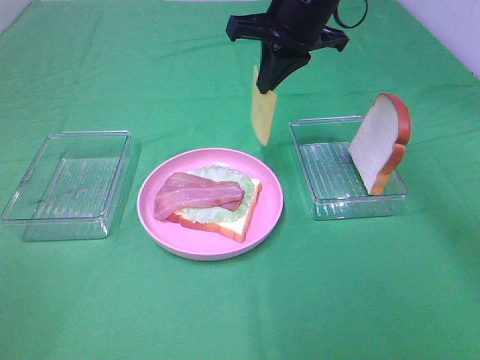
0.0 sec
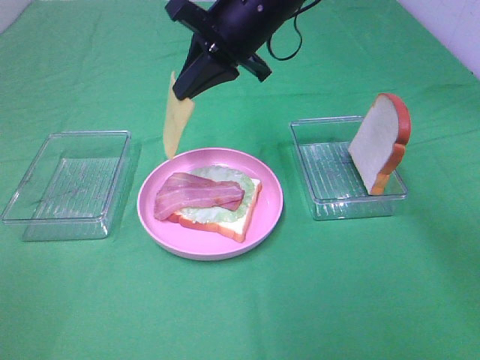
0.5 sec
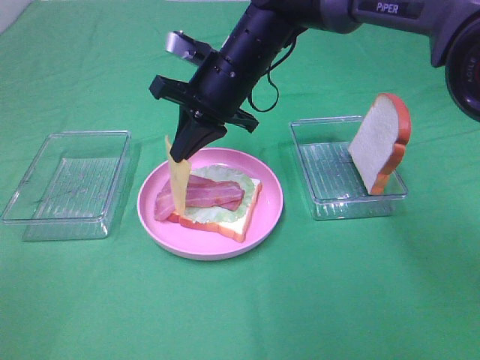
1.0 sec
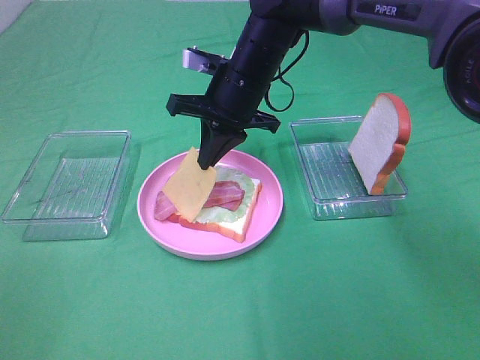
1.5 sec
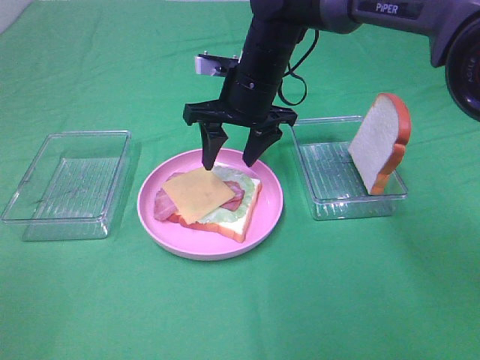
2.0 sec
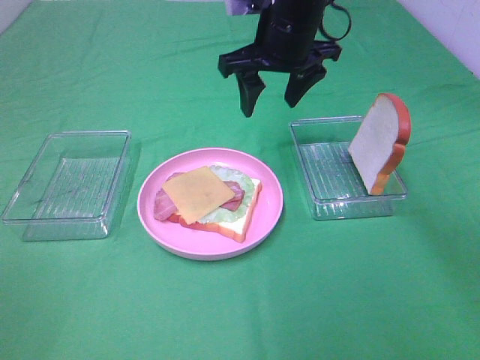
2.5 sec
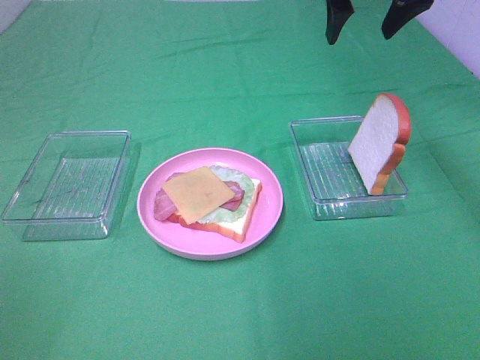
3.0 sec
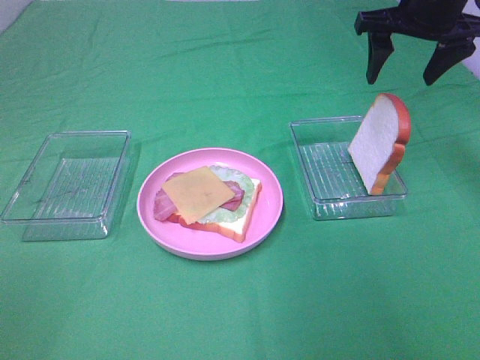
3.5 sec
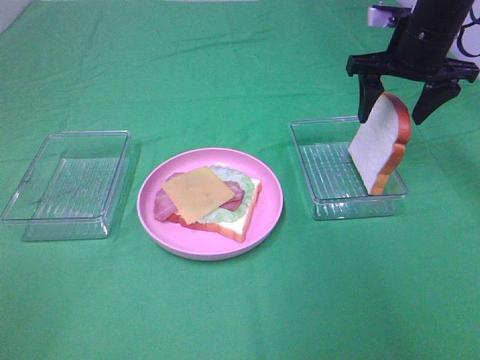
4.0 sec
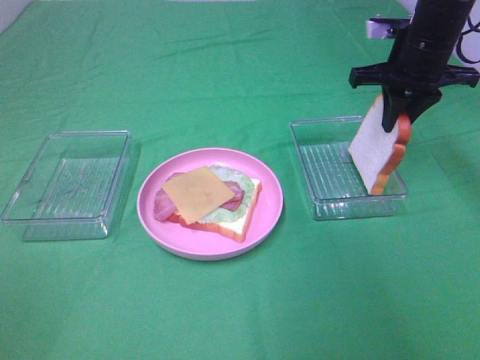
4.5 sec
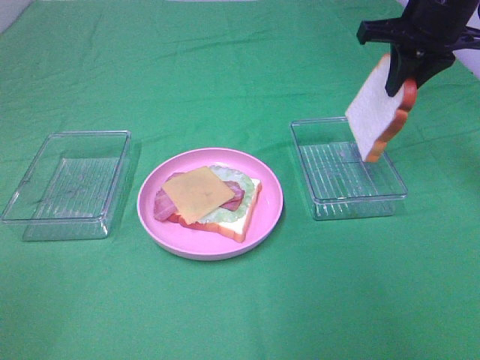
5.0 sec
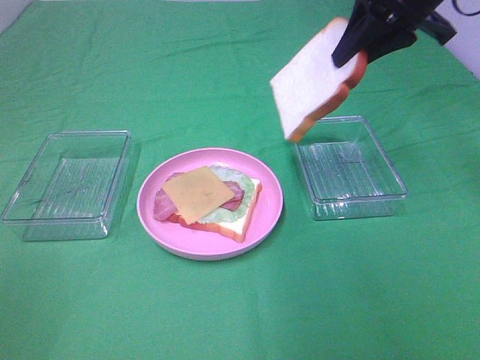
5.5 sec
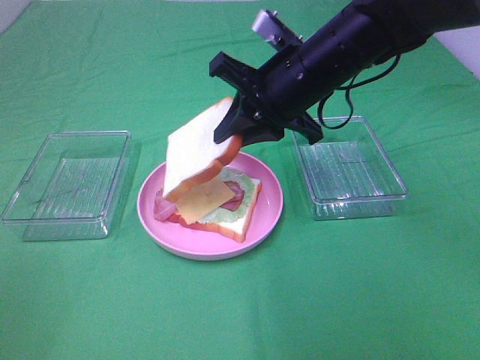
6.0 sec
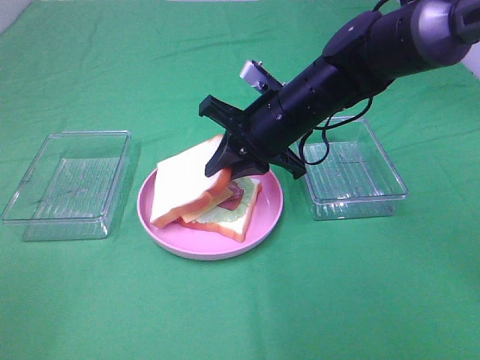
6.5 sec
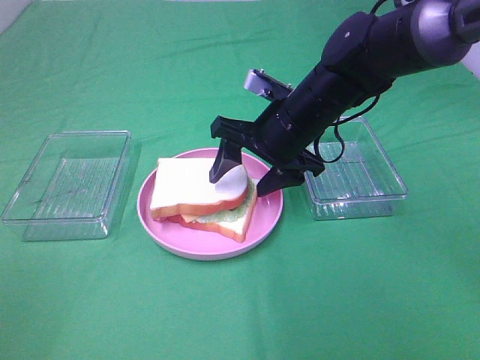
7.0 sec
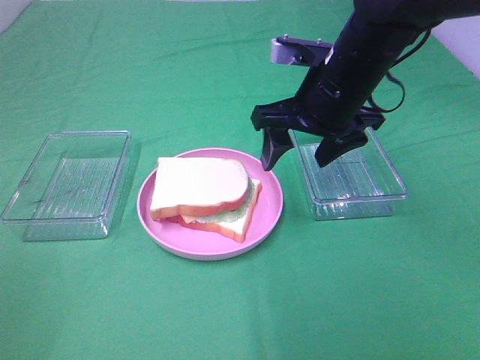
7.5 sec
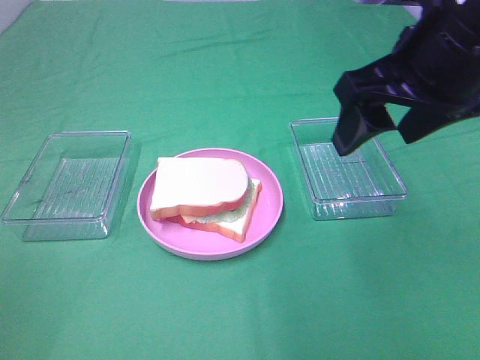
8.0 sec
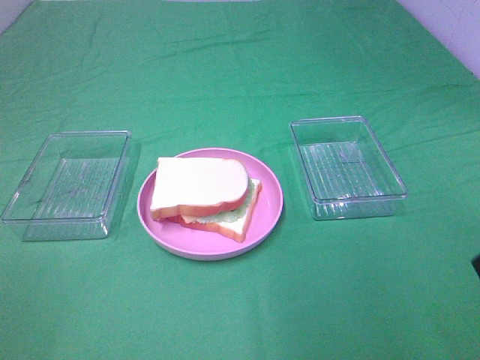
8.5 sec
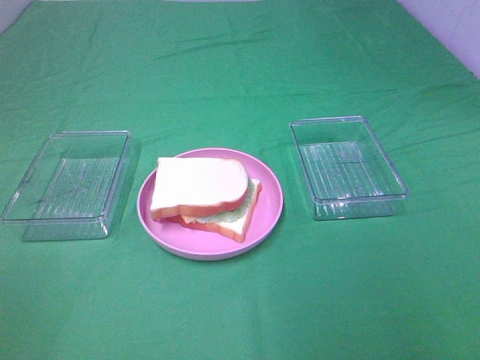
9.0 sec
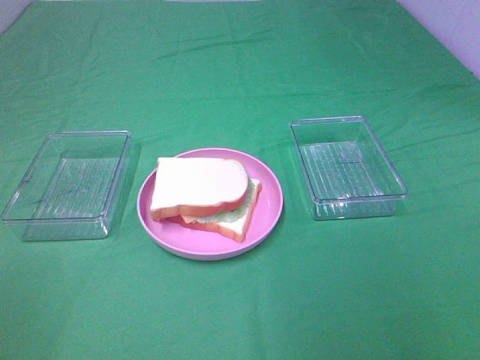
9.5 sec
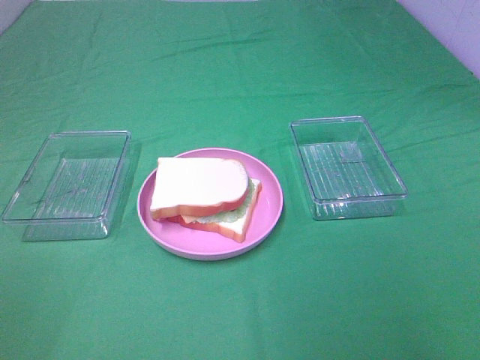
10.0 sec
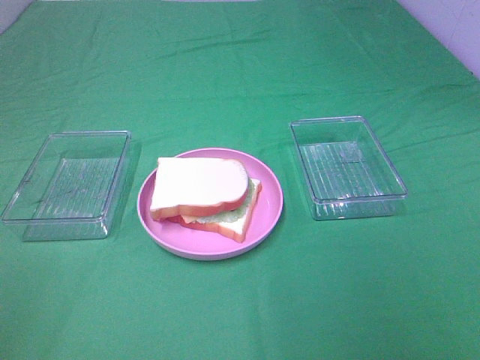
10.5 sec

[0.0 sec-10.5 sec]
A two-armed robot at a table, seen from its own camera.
Task of the whole recording: Make sandwiches.
Step, 0.0 sec to 1.5 sec: Right hand:place the cheese slice on top of the bacon.
Step, 2.0 sec to 4.5 sec: Right hand:grab the bread slice.
Step, 5.0 sec to 7.0 sec: Right hand:place the bread slice on the cheese slice.
0.0 sec to 2.0 sec: The right gripper goes roughly 10 cm downward and to the left, and opens.
2.0 sec to 4.0 sec: The right gripper heads to the right, covering some 20 cm.
4.0 sec to 6.5 sec: The right gripper heads to the left, backward and downward, covering approximately 20 cm, and closes up.
6.5 sec to 8.5 sec: The right gripper travels backward, to the right and upward by about 35 cm, and opens up.

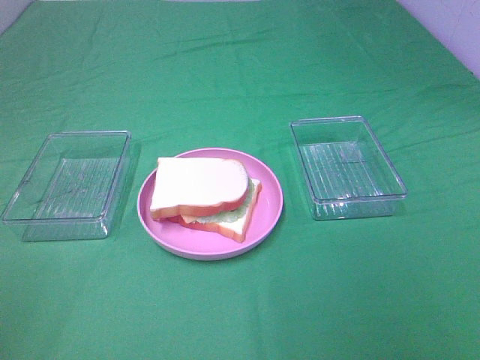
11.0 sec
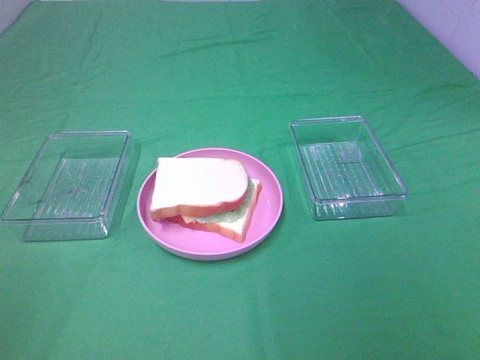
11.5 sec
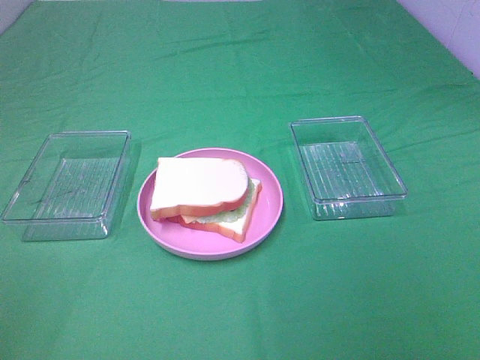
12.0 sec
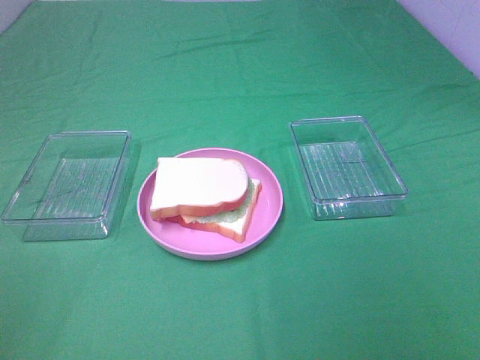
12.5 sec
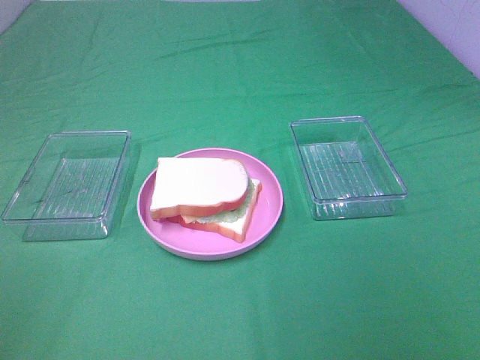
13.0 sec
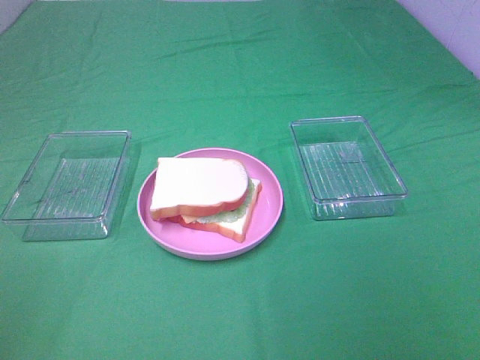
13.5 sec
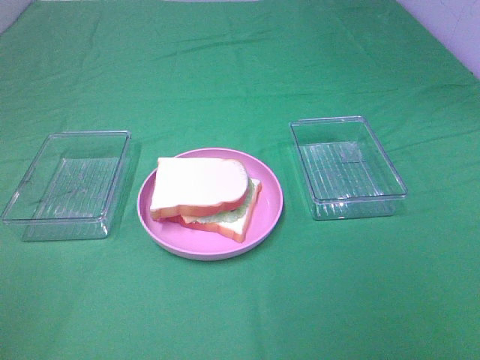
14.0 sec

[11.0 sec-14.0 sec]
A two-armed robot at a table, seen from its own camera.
Task of the whole recording: Make sandwiches.
12.5 sec to 14.0 sec: The two grippers keep their place.

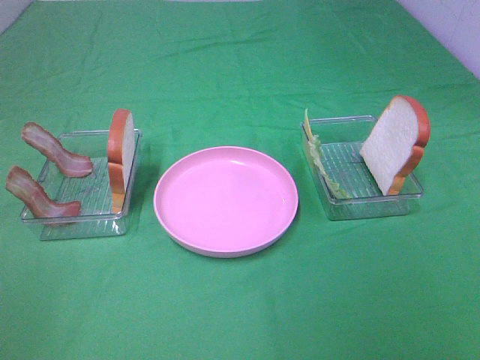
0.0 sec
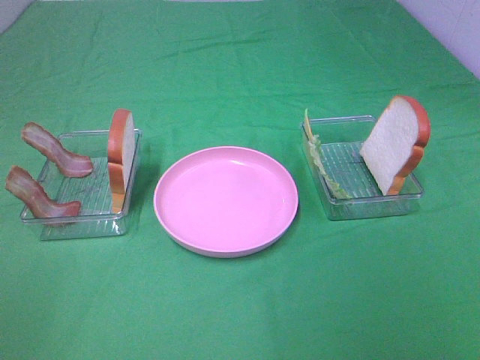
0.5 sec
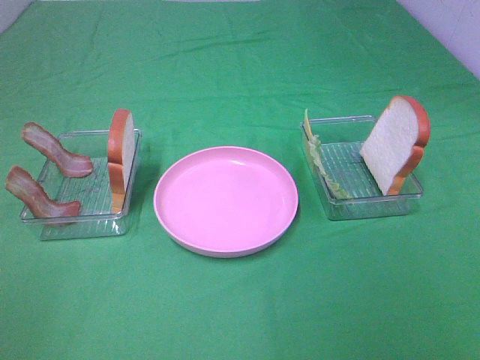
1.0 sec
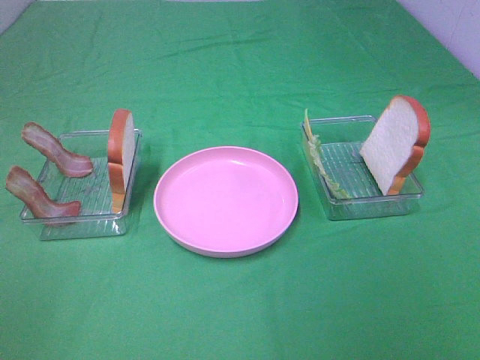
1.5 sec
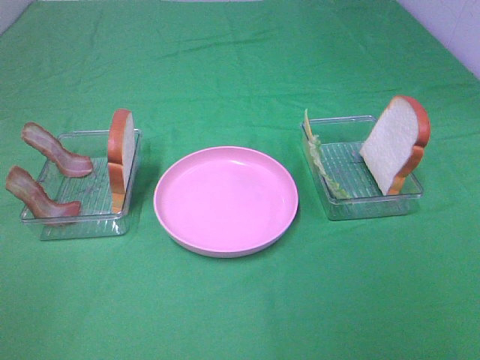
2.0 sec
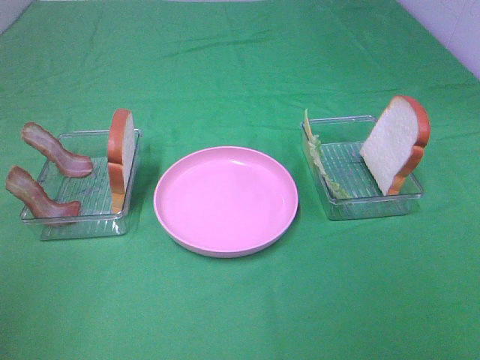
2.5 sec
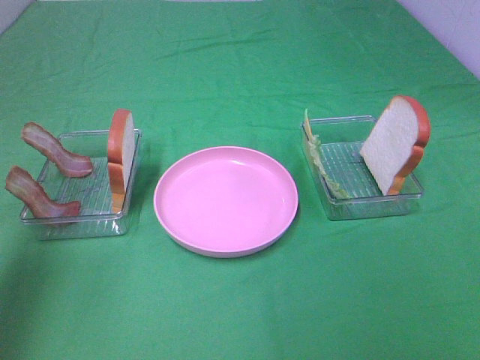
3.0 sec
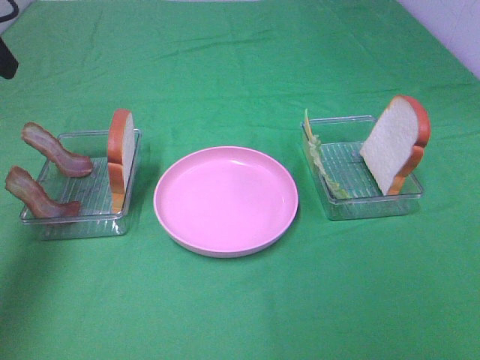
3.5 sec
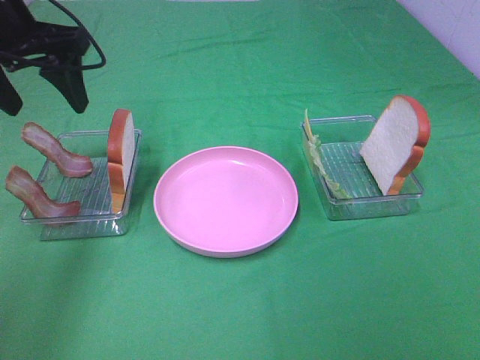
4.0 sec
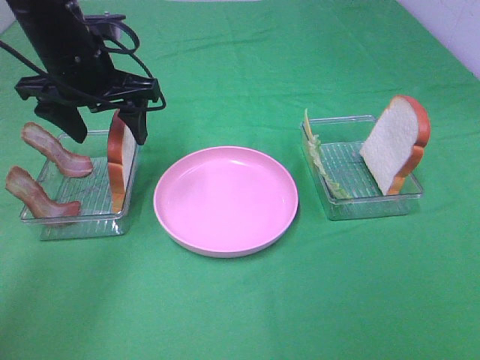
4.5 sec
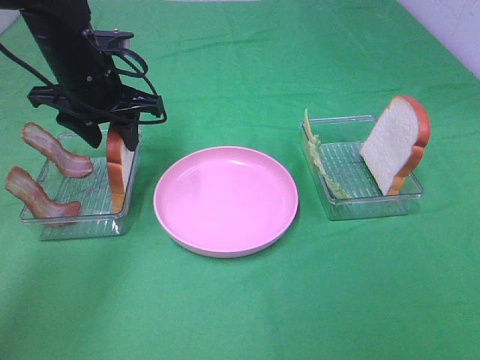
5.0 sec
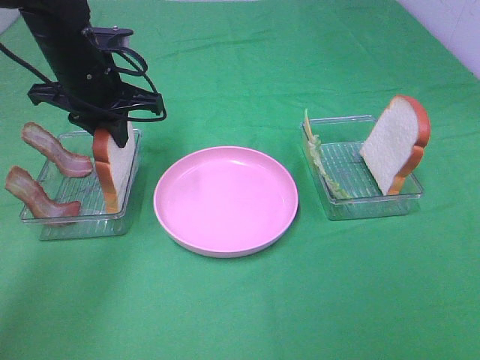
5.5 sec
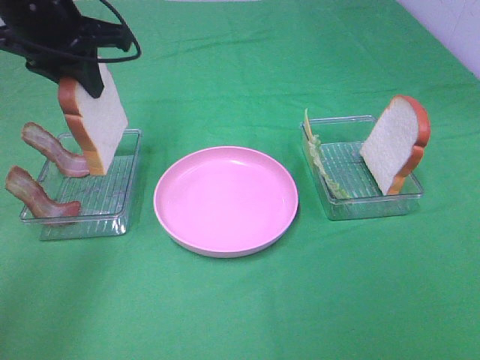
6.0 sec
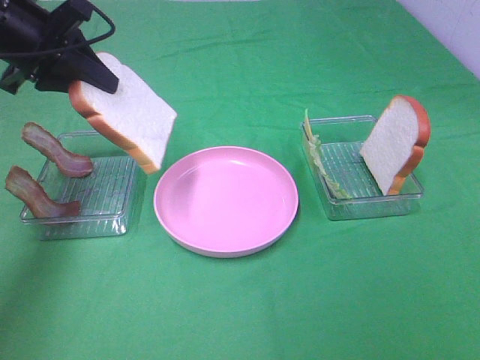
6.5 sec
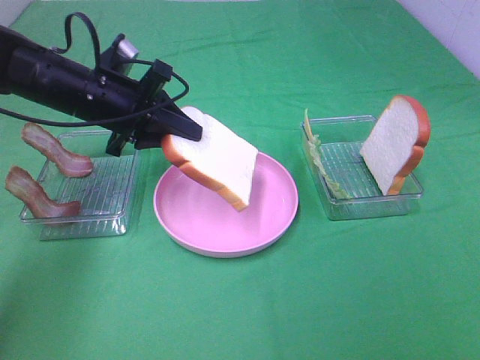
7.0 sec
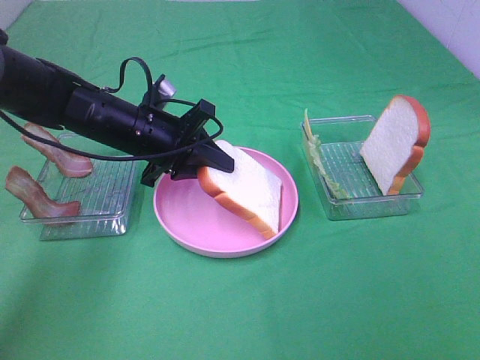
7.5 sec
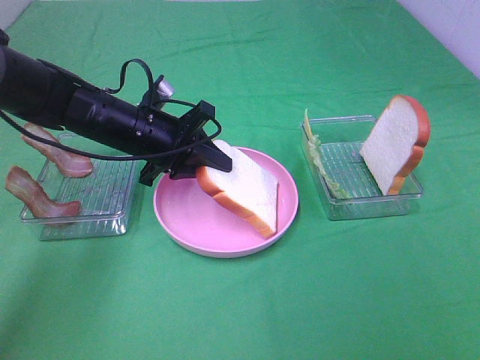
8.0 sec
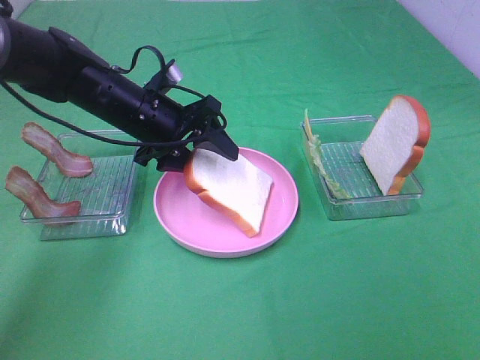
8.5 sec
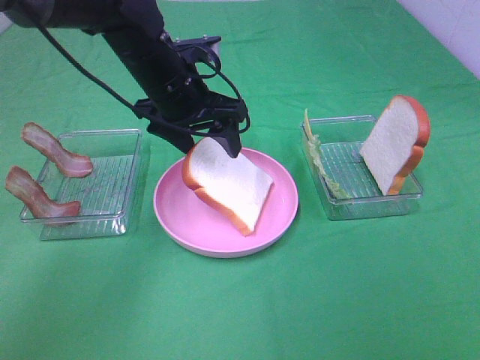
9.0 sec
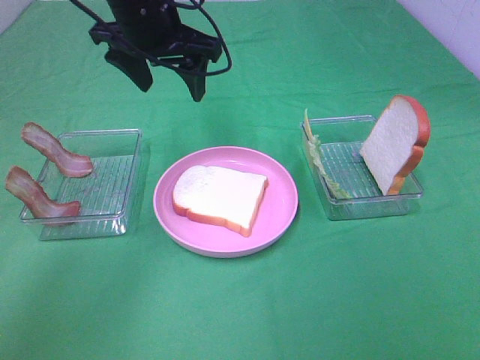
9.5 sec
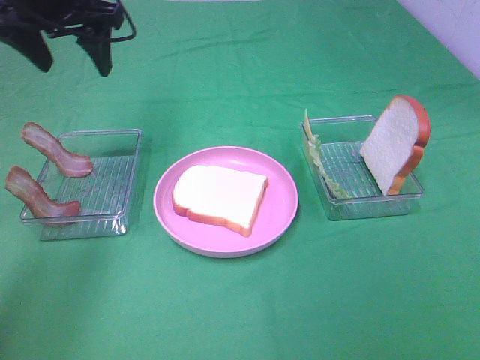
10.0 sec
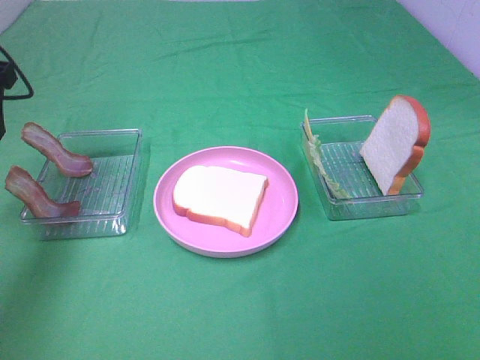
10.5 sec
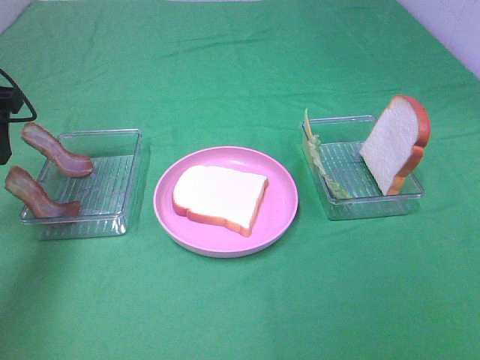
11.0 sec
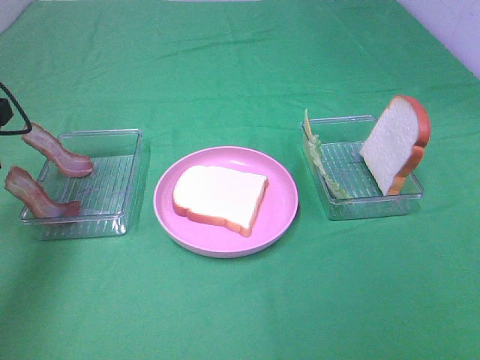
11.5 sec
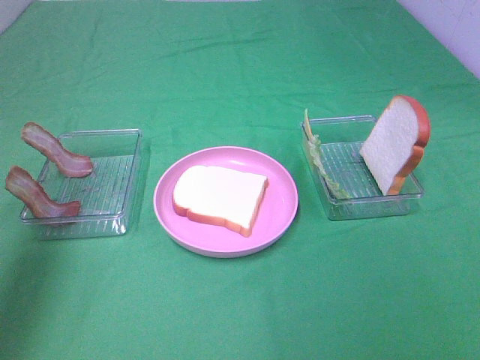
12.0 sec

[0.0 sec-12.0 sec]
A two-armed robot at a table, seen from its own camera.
Task of the whole recording: Make sandwiches.
Step, 0.0 sec to 5.0 sec: Left hand:grab the bread slice.
Step, 5.5 sec to 9.0 sec: Left hand:place the bread slice on the plate.
0.0 sec to 2.0 sec: Both grippers stay put.
2.0 sec to 4.0 sec: The left gripper moves forward, some 35 cm.
4.0 sec to 6.0 sec: The left gripper goes downward and returns, approximately 10 cm each way, and closes its fingers.
6.0 sec to 8.0 sec: The left gripper is displaced downward and to the right by roughly 20 cm.
8.0 sec to 10.0 sec: The left gripper heads upward and to the left, covering approximately 20 cm, and opens up.
10.0 sec to 12.0 sec: The left gripper shifts about 20 cm backward and to the left.
